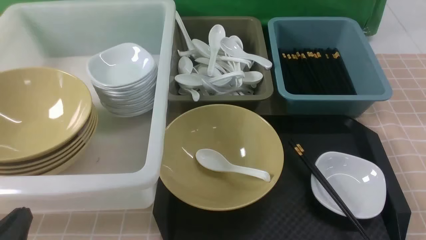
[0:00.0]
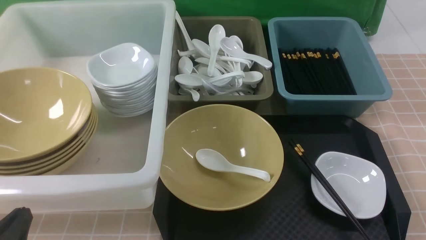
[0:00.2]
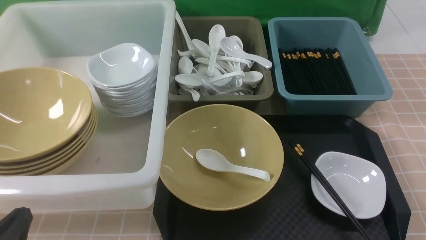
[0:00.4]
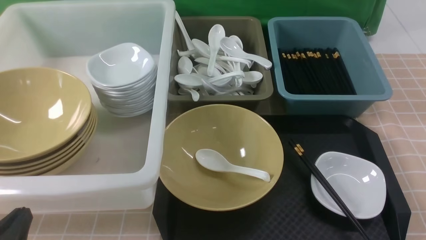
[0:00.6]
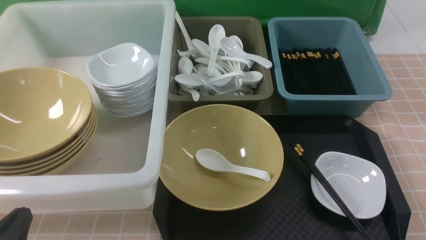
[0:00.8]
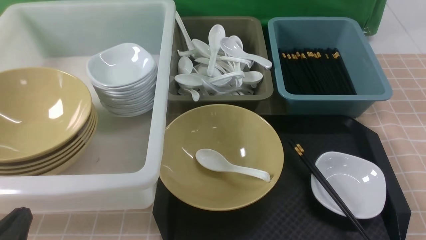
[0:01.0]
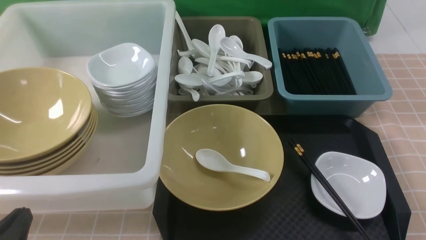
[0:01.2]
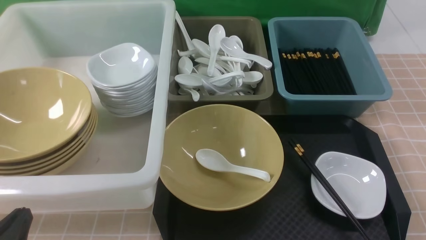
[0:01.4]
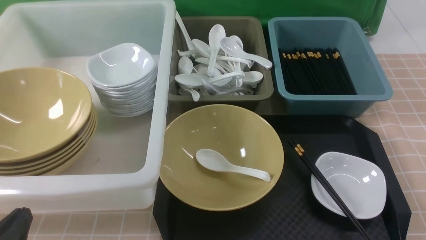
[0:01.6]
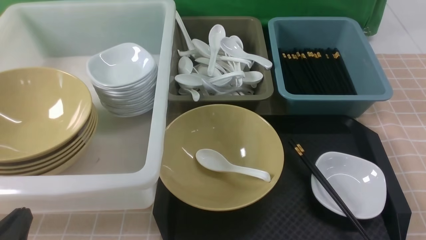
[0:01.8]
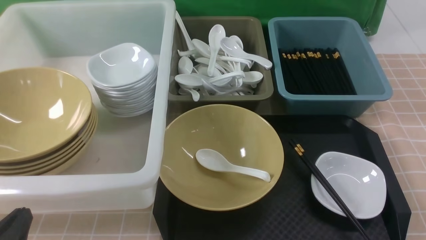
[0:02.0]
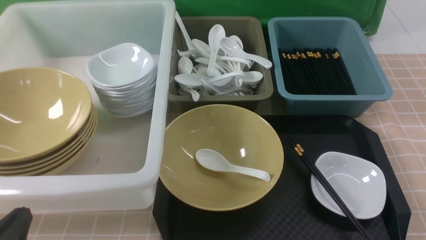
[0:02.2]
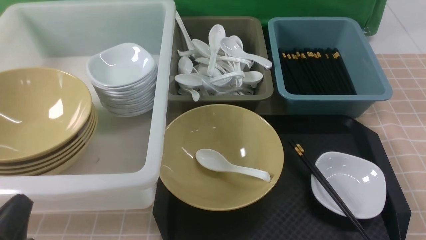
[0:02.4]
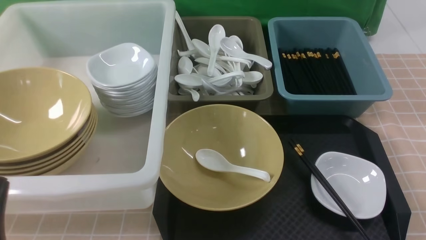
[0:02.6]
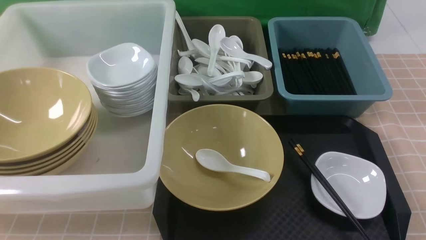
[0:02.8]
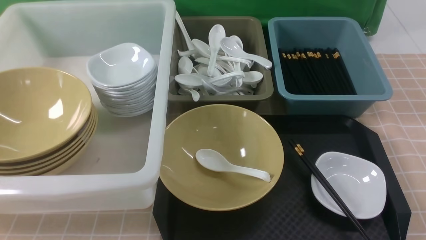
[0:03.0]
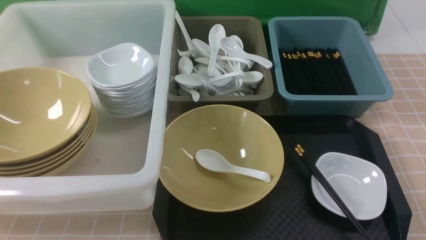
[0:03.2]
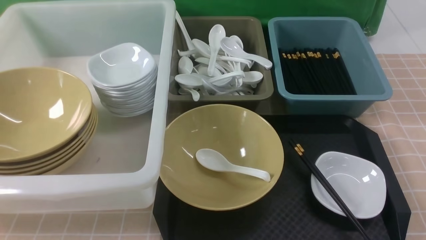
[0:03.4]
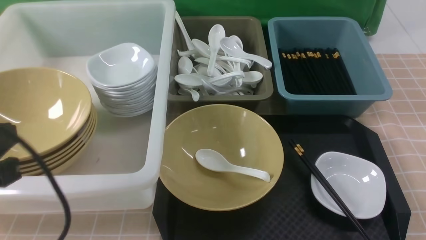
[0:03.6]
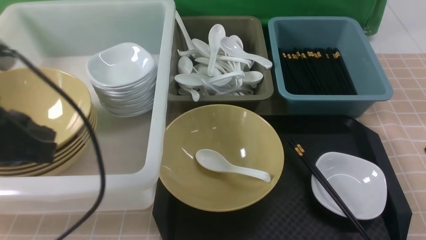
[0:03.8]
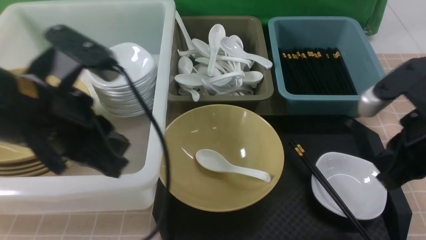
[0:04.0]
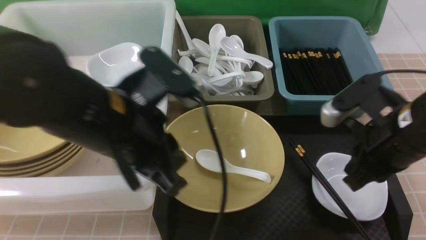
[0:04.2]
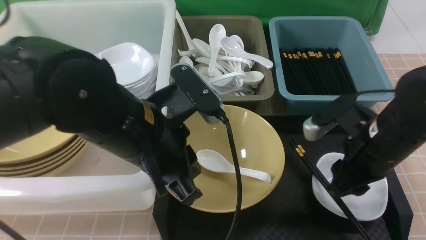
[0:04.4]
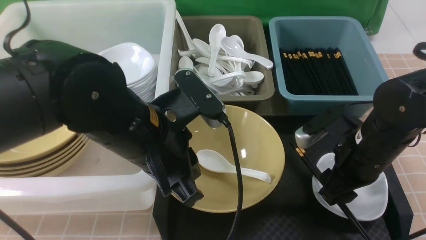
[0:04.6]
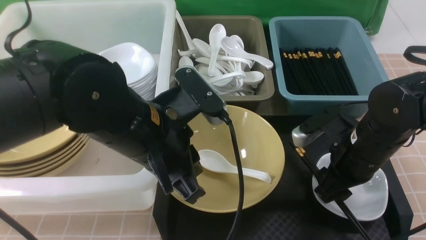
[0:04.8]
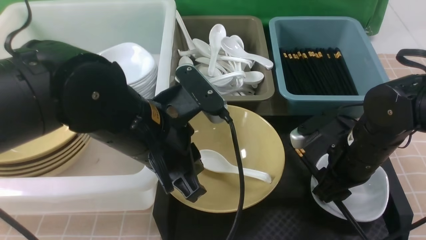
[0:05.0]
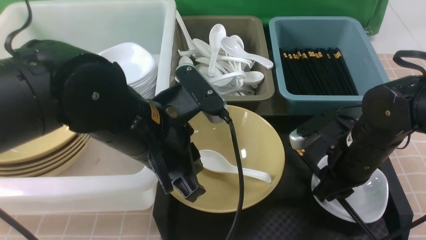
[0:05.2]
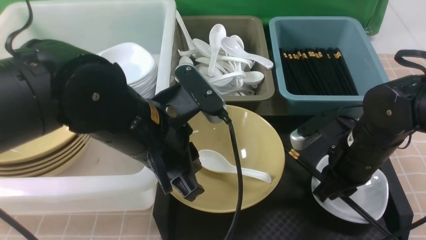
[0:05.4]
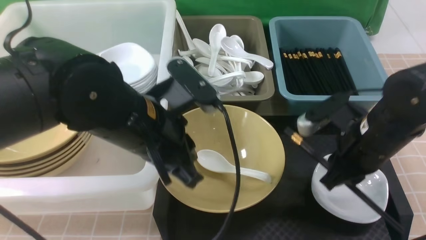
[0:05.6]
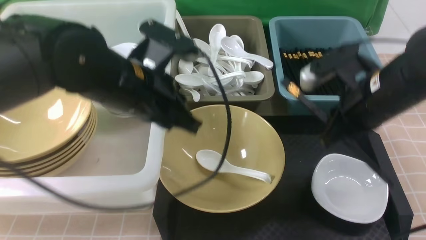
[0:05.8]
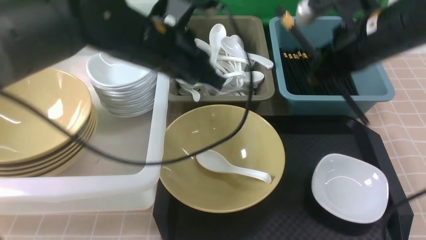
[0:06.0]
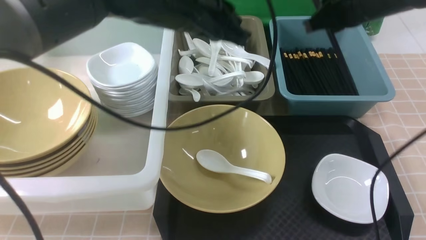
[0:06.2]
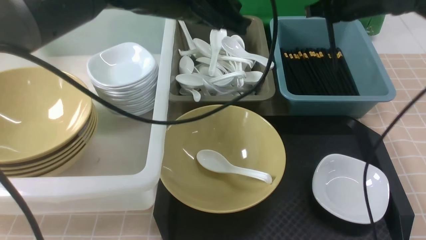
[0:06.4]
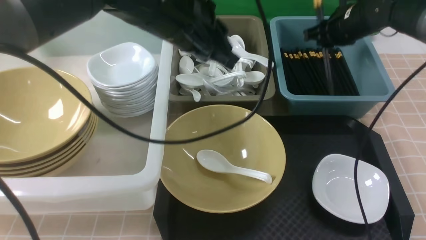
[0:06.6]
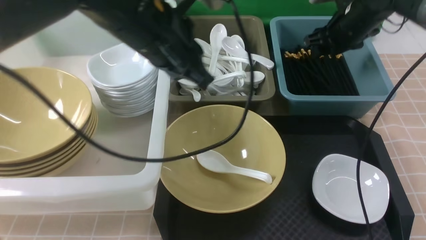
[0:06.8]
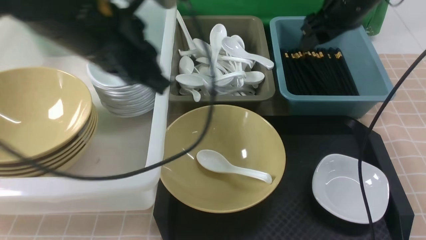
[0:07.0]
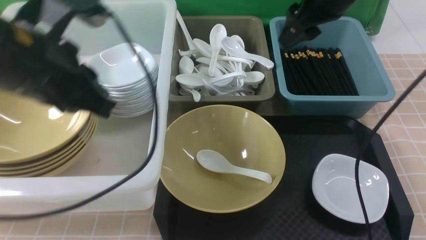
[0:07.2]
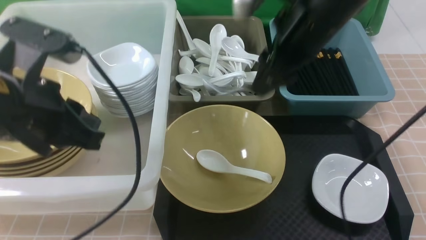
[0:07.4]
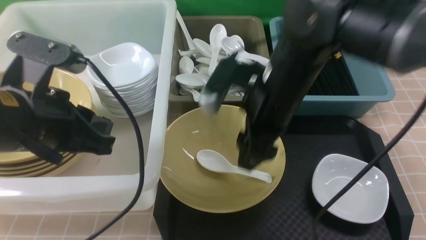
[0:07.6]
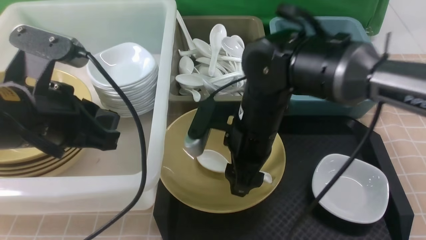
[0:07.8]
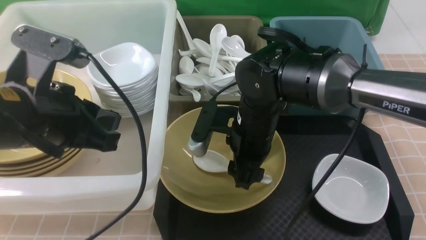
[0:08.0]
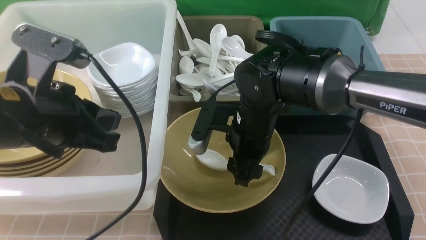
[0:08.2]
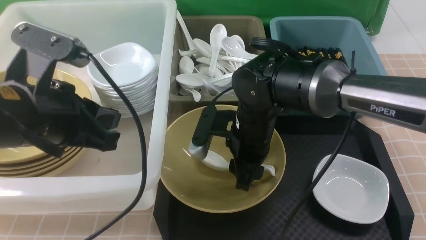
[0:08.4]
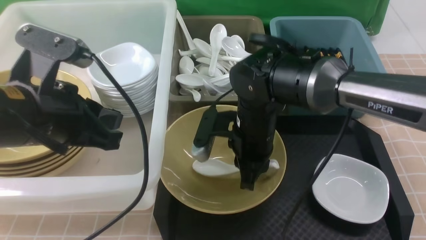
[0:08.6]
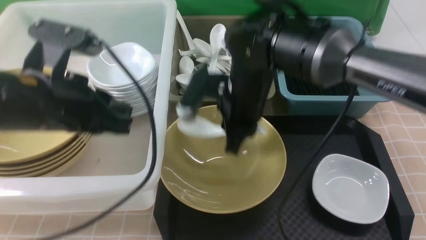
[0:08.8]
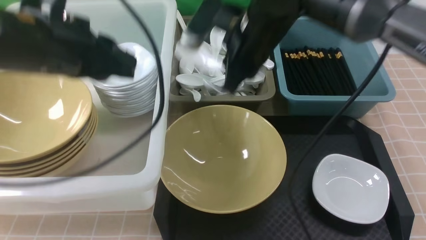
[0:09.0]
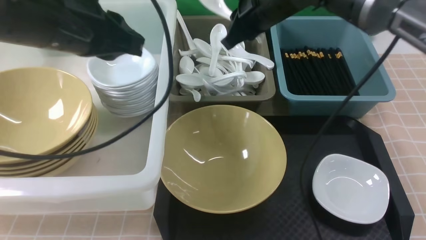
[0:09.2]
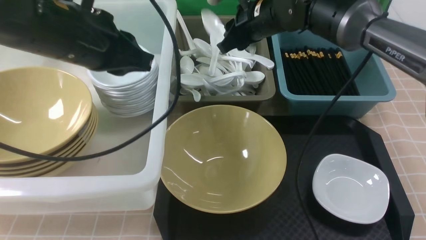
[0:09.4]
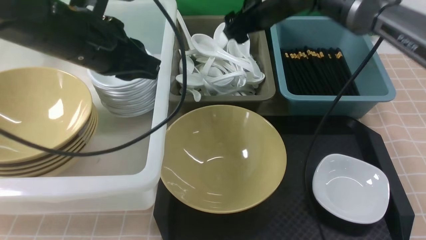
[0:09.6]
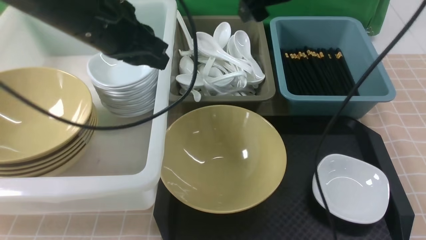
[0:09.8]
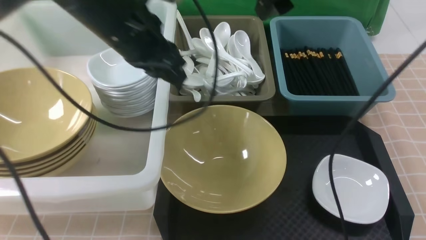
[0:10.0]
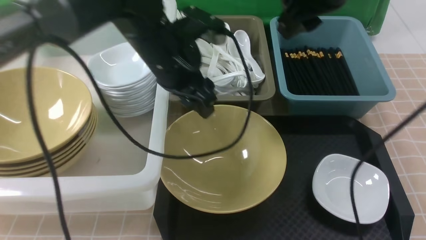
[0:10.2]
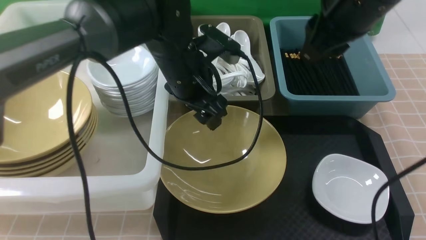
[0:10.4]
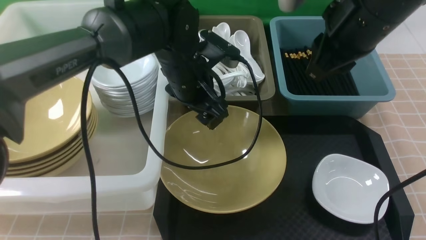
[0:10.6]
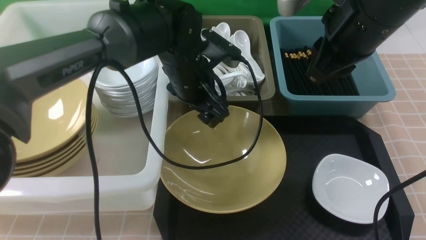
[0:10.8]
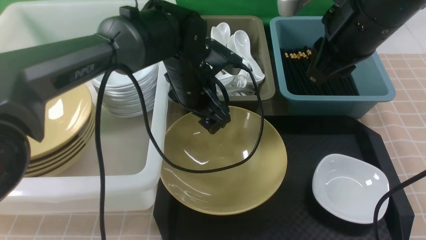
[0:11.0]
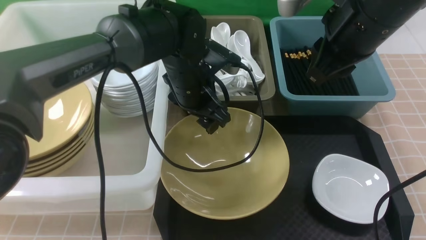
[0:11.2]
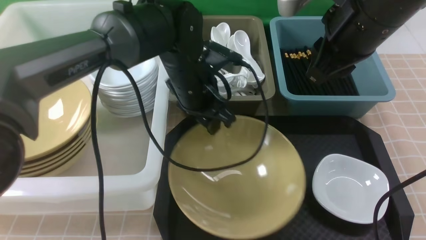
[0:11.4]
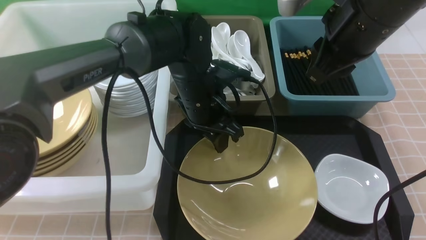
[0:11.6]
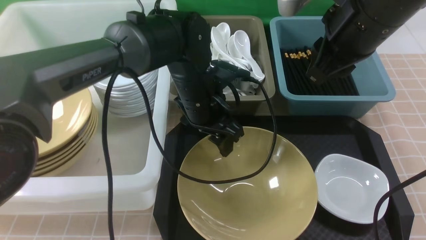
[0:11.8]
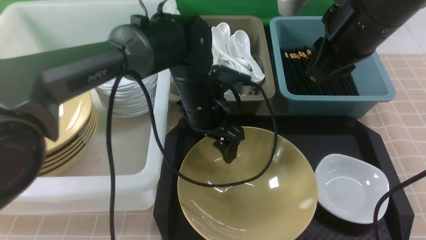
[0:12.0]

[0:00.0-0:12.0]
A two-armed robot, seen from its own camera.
Task of the whole recording: on brown table put chopsticks spoon bowls plates into blue grey white boxes.
Step, 0:00.0 to 0:05.4: use the right arm to grab the chopsticks.
Step, 0:05.6 to 0:06.8: use the right arm to put the chopsticks into the small storage box on the right.
Step, 0:07.2 to 0:08.6: use the right arm to grab the soup spoon in the middle.
Step, 0:08.8 to 0:09.8: use the right arm to put the soup spoon into the small storage box in the middle.
0:00.0 to 0:01.6: Neither gripper changes place.
0:03.0 to 0:04.4: The right gripper moves forward and to the left, some 20 cm, and closes and opens again; the left gripper is displaced to the right, forward and upward by approximately 25 cm.
0:04.4 to 0:06.0: The left gripper moves forward, approximately 10 cm; the right gripper moves upward and forward, some 15 cm, and closes up.
0:06.0 to 0:07.6: The right gripper shifts roughly 10 cm to the left, travels forward and back again, approximately 15 cm each way, and opens up; the left gripper heads to the left and backward, covering some 15 cm.
0:07.6 to 0:09.0: The two grippers go roughly 5 cm forward. The right gripper reaches some 10 cm downward, then returns, and closes its fingers.
0:09.0 to 0:10.4: The left gripper heads to the right, forward and downward, covering approximately 20 cm, and opens; the right gripper shifts roughly 15 cm to the right, upward and backward, and opens, then closes once more.
0:10.4 to 0:12.0: The left gripper shifts roughly 5 cm downward, and closes, then opens again.

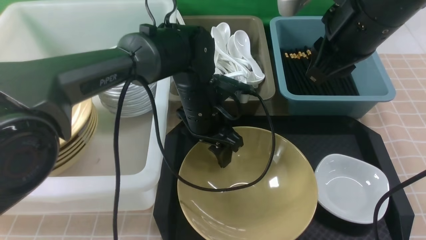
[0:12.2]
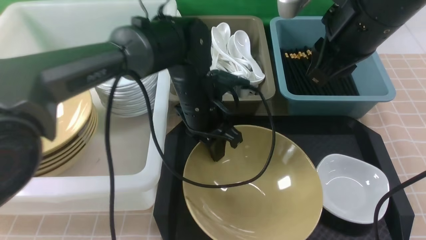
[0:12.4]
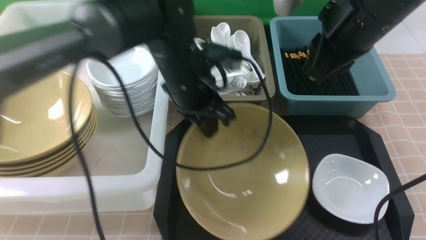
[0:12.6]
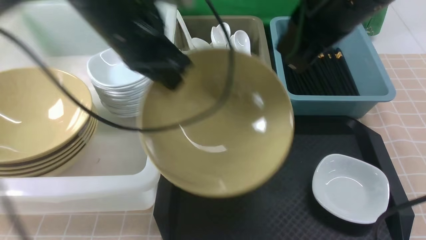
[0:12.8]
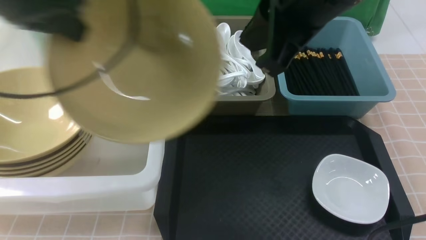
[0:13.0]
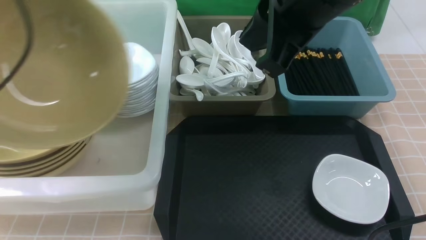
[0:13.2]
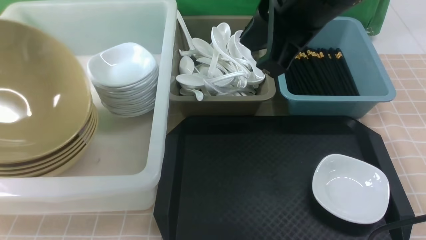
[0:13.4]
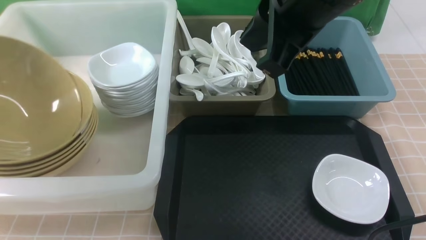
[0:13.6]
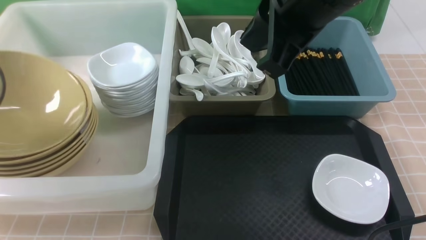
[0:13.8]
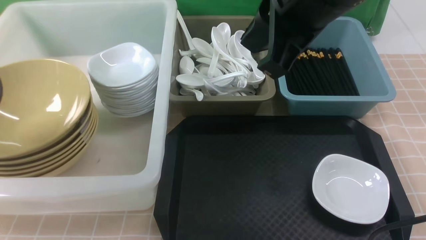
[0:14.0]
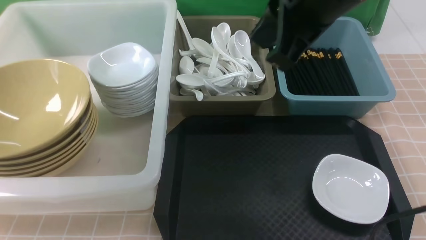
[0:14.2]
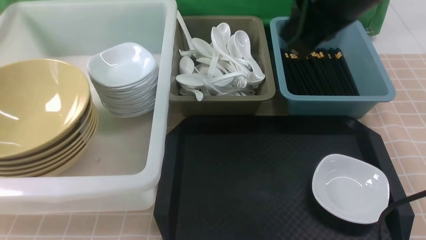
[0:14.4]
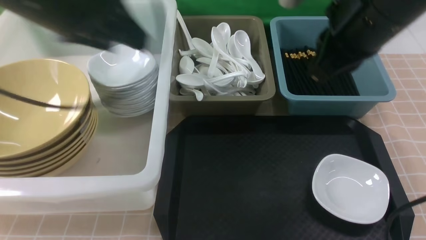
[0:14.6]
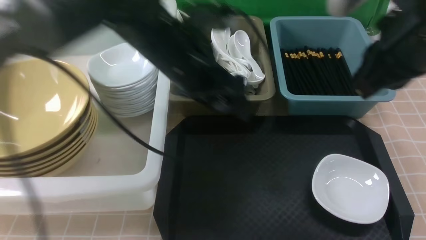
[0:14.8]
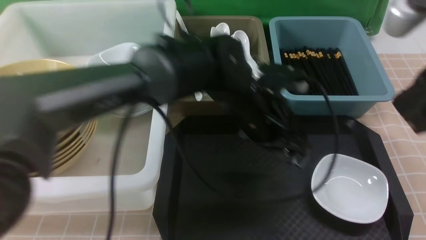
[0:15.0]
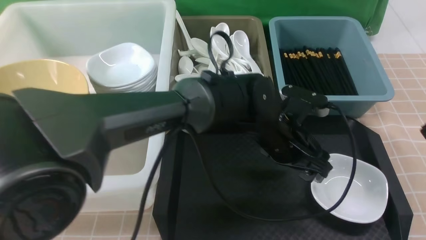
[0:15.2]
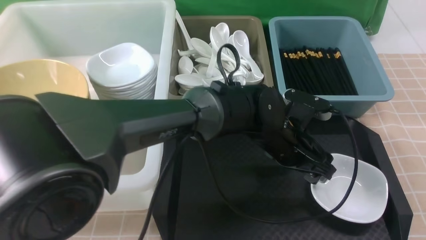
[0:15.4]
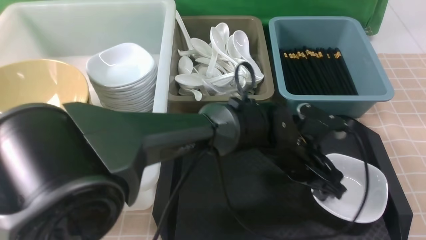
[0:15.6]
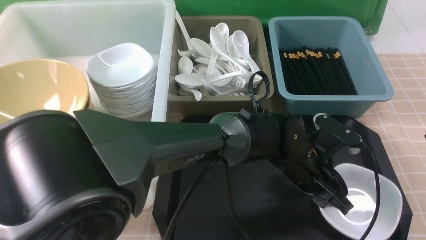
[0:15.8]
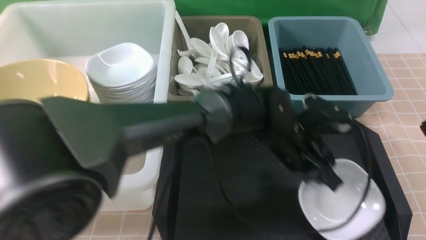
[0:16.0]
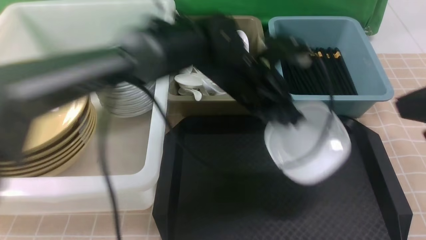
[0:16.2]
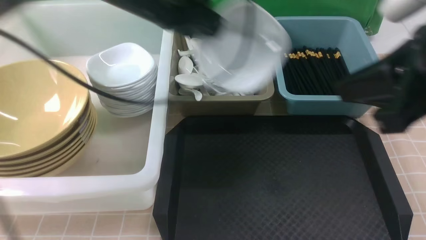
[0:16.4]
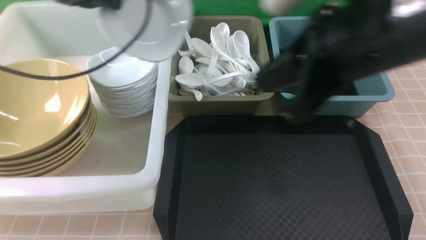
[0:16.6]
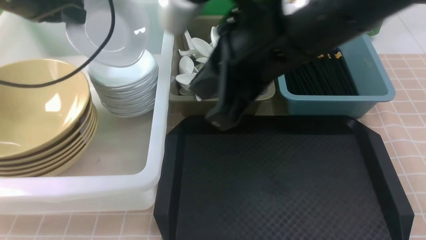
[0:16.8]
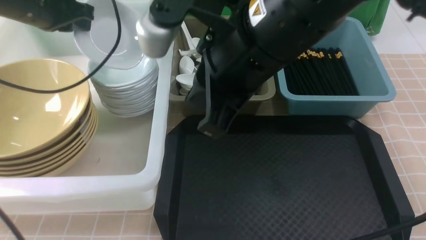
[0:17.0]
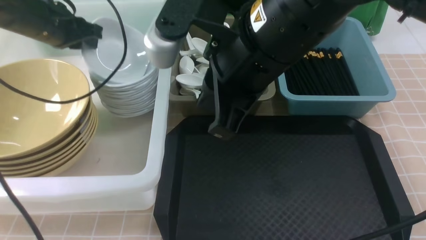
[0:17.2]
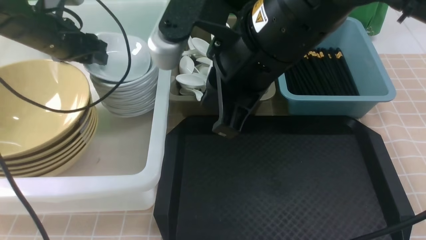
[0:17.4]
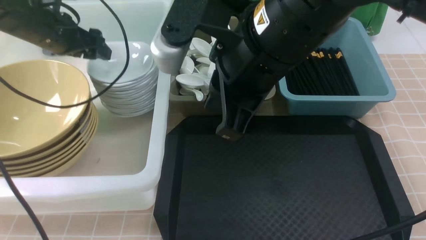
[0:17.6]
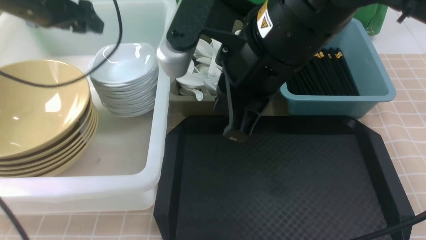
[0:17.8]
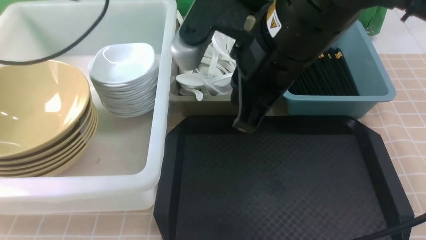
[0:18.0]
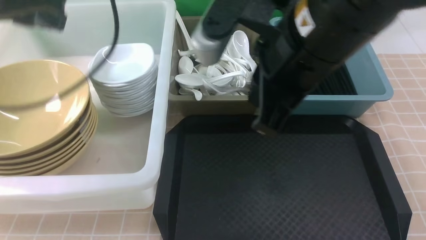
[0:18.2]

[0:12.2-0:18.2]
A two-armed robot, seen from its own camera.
Task of the whole recording: on brown table put chopsticks spoon bowls plates into blue grey white boxes.
Step, 0:13.0 to 0:14.4: use the left arm to put the noodle bowl into the large storage box on the left.
Step, 0:14.6 to 0:15.8: use the left arm to grab the plate.
Step, 0:16.2 to 0:18.0: use the left arm to put the plate into the large storage box on the left.
0:12.2 to 0:13.8: The left gripper travels to the left by some 40 cm, and closes, then opens again, while the right gripper shifts roughly 10 cm to the left, upward and backward, and closes its fingers.
0:13.8 to 0:15.2: The right gripper travels to the right and backward by roughly 15 cm. Meanwhile the left gripper moves to the right, some 50 cm.
0:15.2 to 0:16.6: The right gripper heads to the left and forward, covering about 15 cm; the left gripper heads to the left and upward, covering roughly 35 cm, and closes.
0:16.6 to 0:18.2: The left gripper travels backward by approximately 10 cm, and opens, then closes once more.
